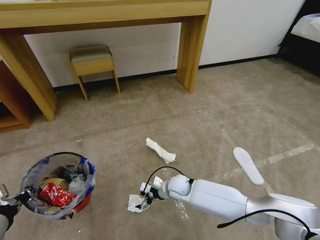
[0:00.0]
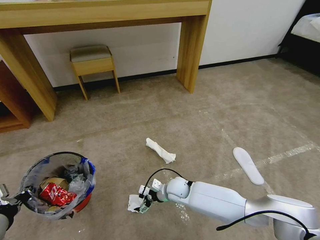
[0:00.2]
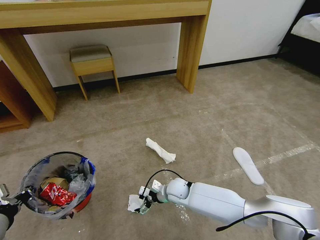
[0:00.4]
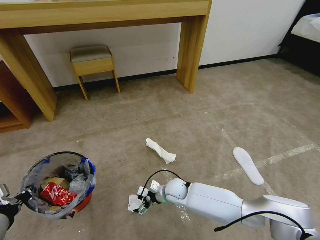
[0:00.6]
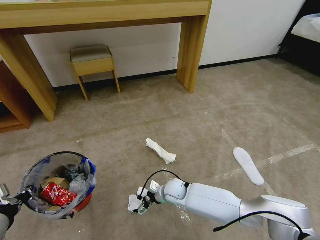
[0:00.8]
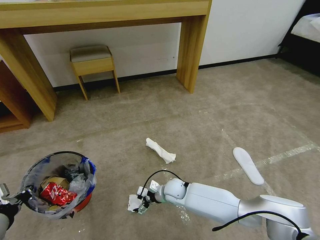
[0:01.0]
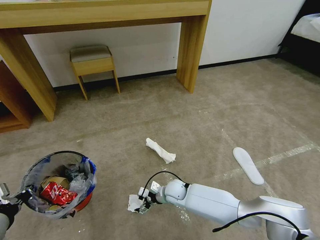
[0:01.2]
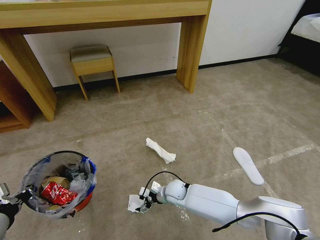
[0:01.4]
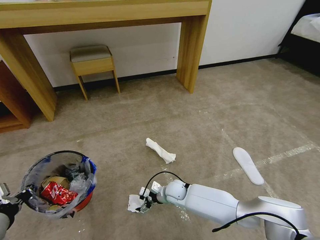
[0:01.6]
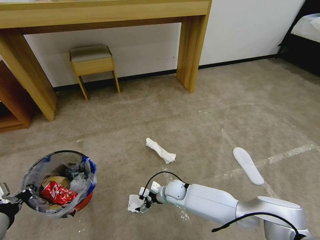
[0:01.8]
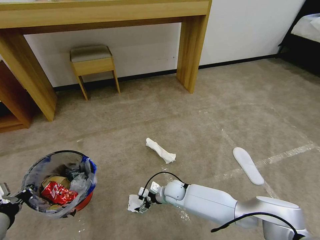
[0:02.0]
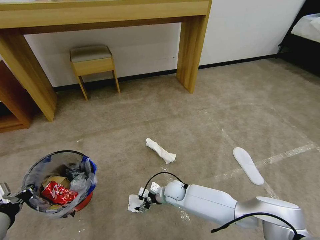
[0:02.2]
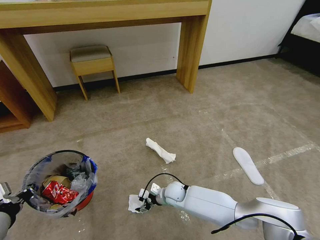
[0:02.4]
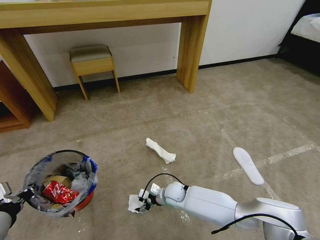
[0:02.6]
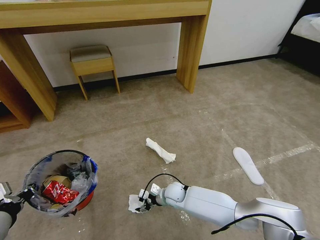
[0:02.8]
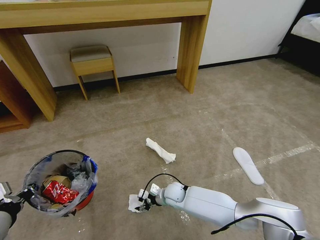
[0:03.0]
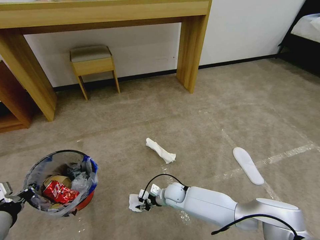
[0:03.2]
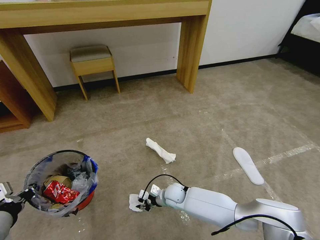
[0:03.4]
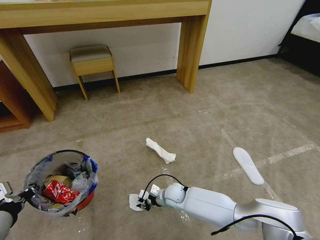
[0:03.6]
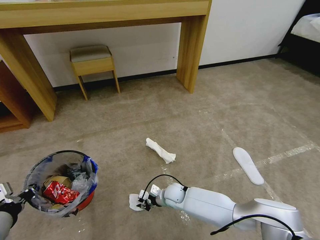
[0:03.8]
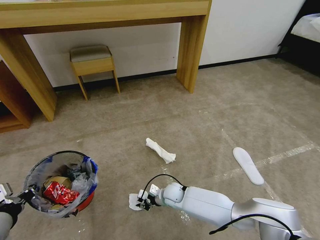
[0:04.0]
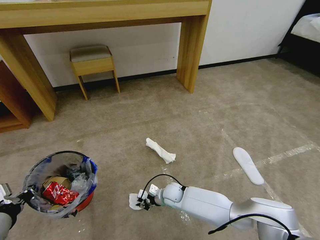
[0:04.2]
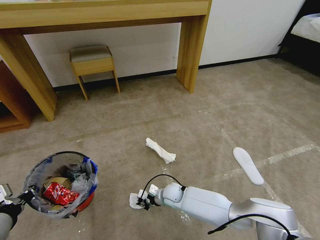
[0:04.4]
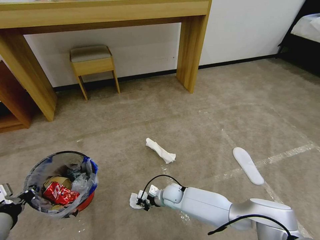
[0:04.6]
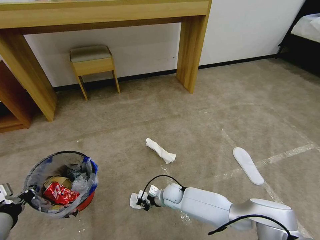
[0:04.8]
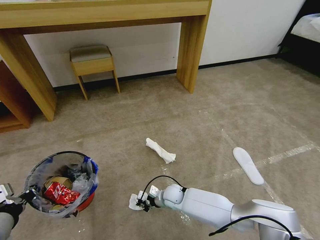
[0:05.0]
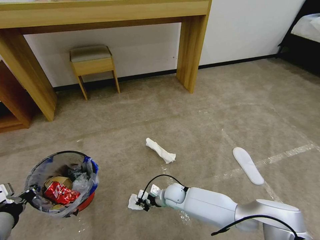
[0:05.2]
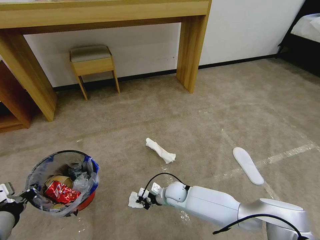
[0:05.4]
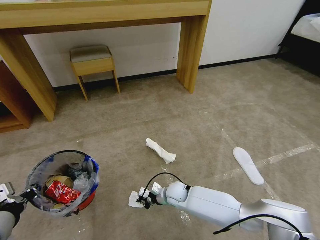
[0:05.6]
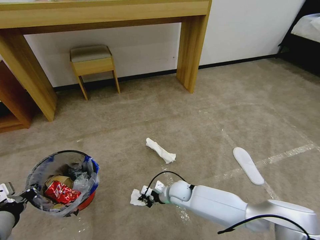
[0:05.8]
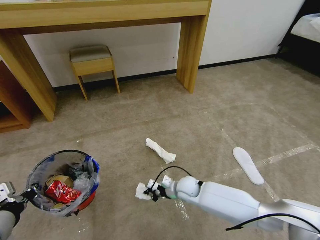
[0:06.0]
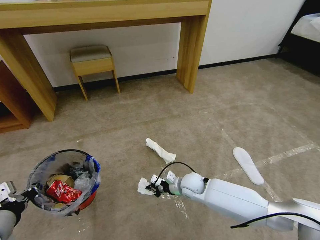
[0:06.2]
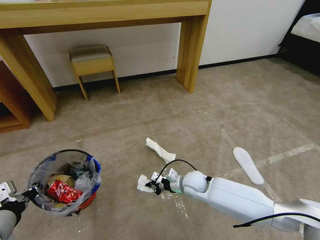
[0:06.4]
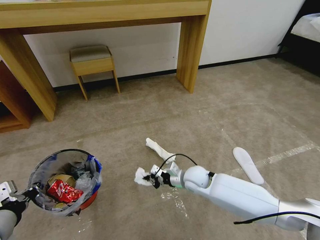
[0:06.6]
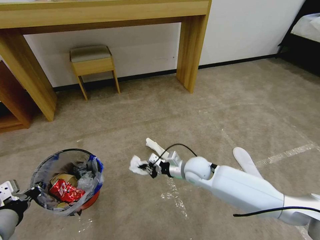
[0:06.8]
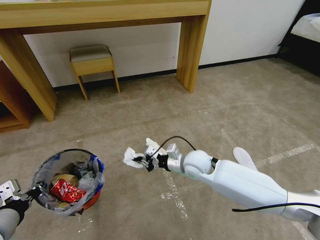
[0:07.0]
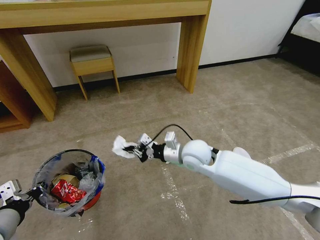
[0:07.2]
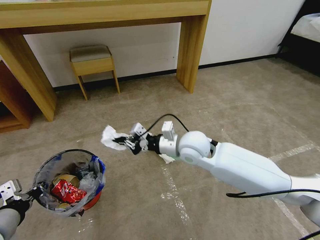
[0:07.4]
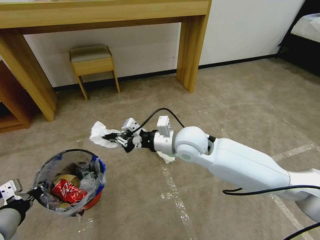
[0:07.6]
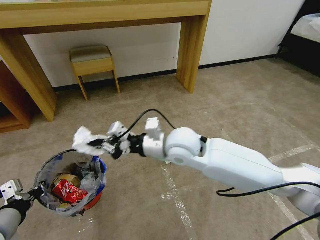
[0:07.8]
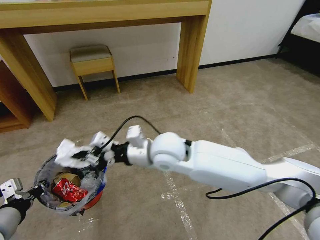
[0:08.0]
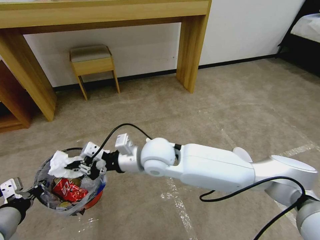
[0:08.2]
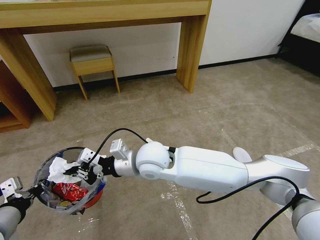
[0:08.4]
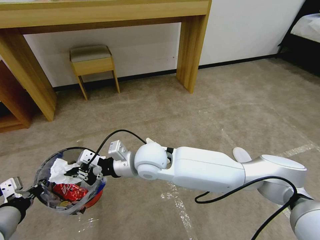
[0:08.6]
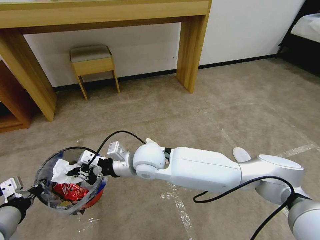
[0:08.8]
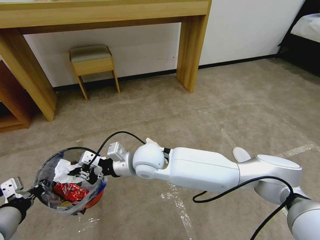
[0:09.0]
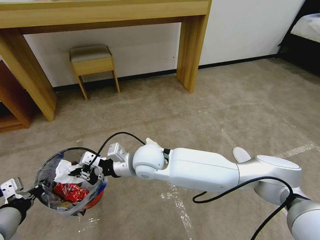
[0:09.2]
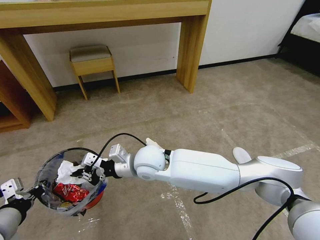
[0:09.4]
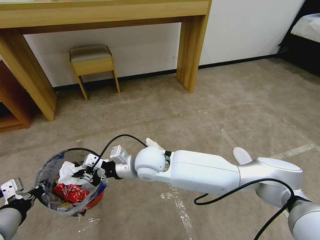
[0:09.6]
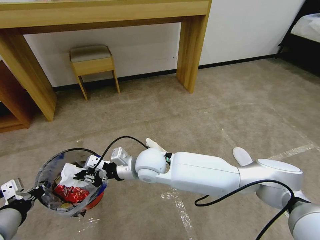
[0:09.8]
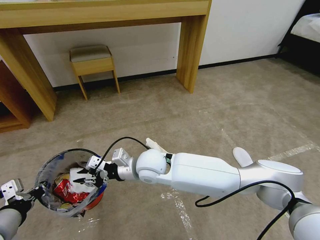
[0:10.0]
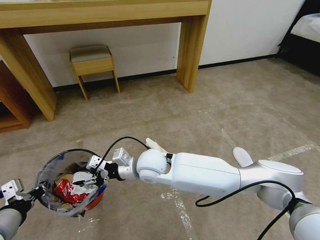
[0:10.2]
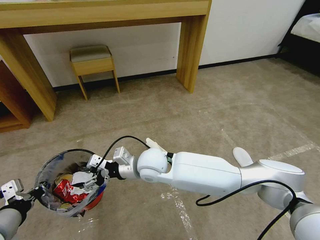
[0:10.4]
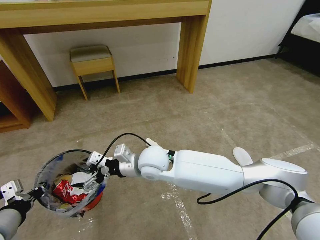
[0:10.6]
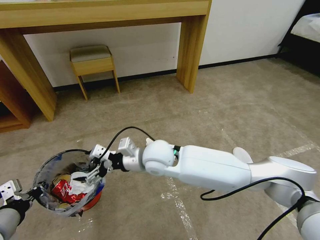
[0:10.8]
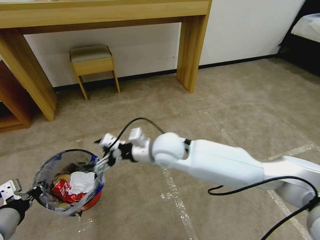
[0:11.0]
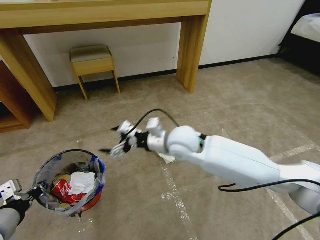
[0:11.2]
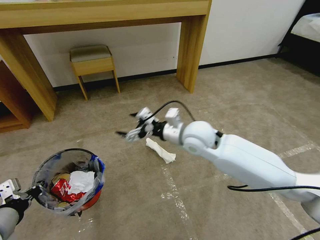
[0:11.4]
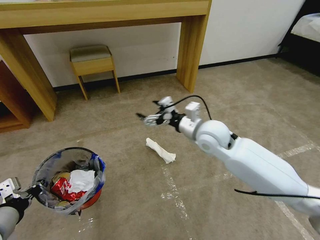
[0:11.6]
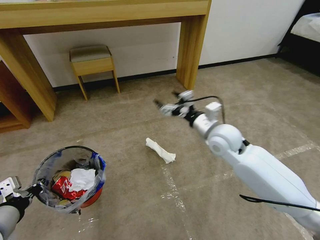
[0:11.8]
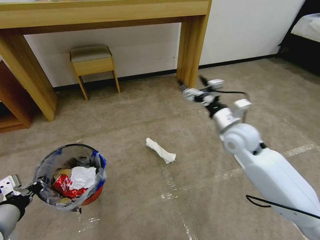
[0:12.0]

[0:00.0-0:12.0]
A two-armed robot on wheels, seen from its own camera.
Task of the whole recording: Pick up the trash bin and place the garbage on the floor into it.
0:00.0 to 0:01.6: The grippers move only a little.
0:01.6 to 0:03.0: Neither gripper changes place.
0:03.0 to 0:04.4: The right gripper closes up.
0:04.4 to 0:06.0: The right gripper is displaced upward and to the right by some 10 cm.
0:06.0 to 0:07.6: The right gripper goes some 30 cm upward.
0:07.6 to 0:09.0: The right gripper goes roughly 15 cm to the left and downward.
0:09.0 to 0:10.4: The right gripper opens up.
0:10.4 to 0:12.0: The right gripper is displaced to the right by approximately 25 cm.

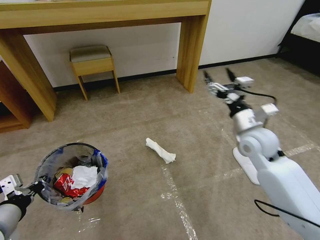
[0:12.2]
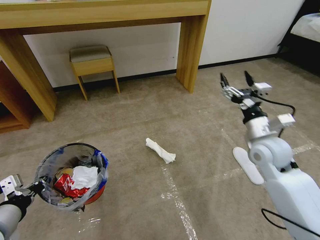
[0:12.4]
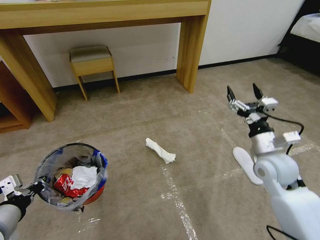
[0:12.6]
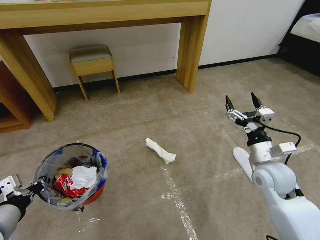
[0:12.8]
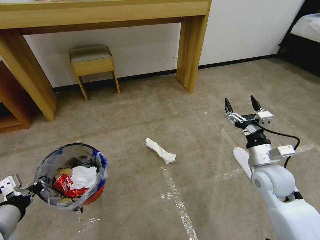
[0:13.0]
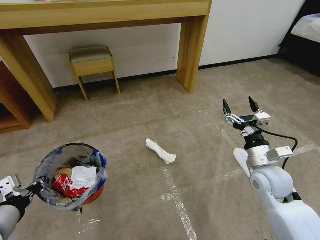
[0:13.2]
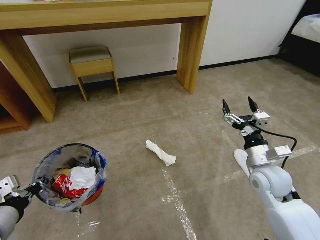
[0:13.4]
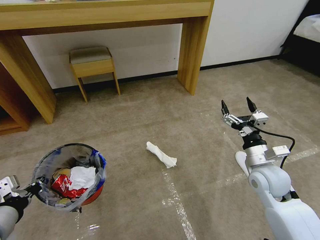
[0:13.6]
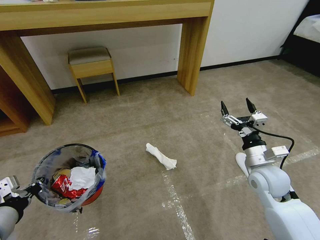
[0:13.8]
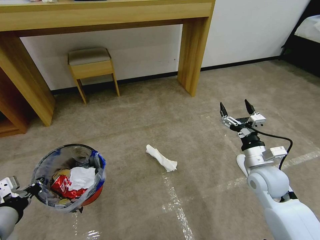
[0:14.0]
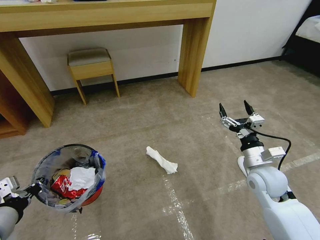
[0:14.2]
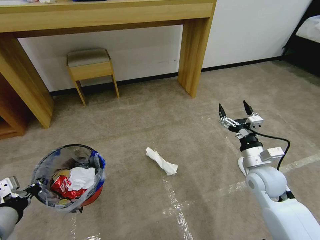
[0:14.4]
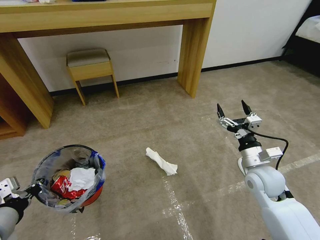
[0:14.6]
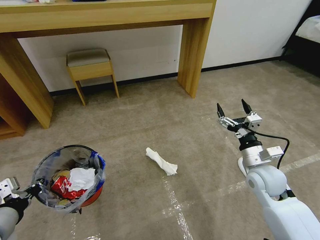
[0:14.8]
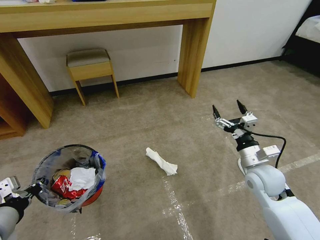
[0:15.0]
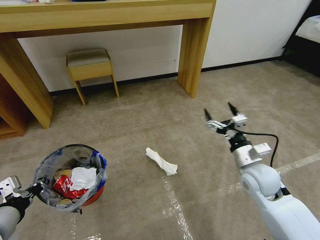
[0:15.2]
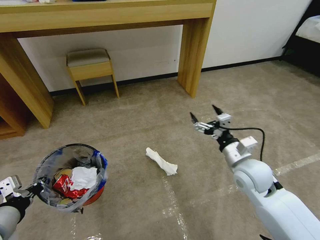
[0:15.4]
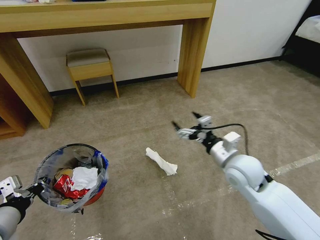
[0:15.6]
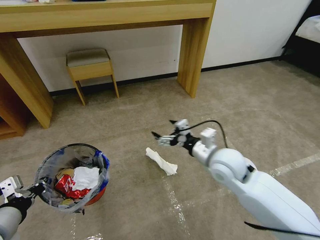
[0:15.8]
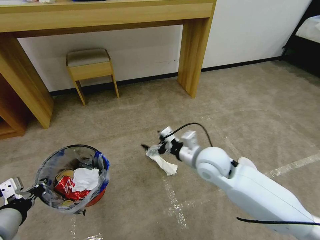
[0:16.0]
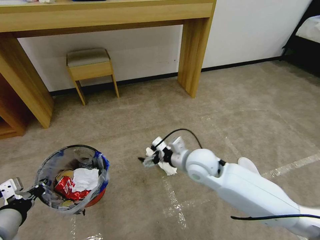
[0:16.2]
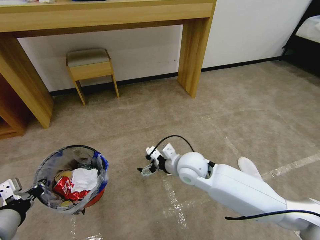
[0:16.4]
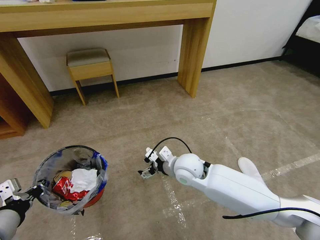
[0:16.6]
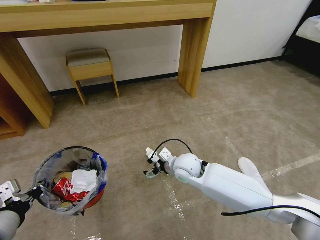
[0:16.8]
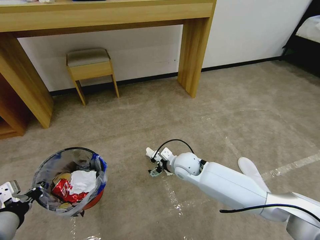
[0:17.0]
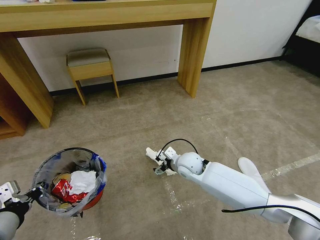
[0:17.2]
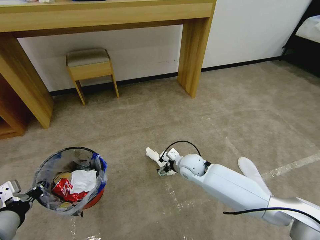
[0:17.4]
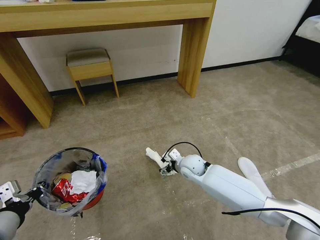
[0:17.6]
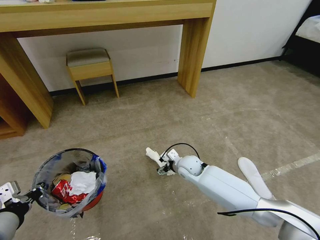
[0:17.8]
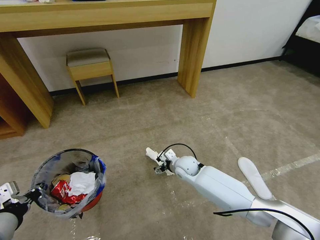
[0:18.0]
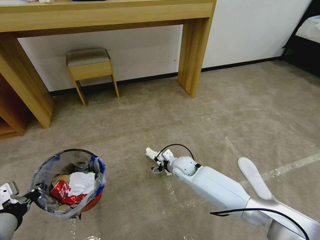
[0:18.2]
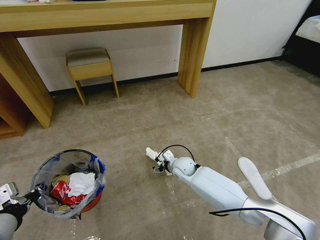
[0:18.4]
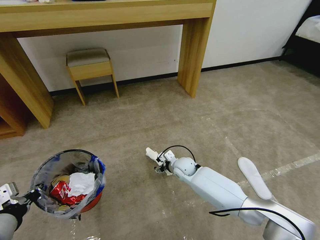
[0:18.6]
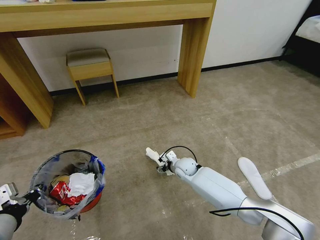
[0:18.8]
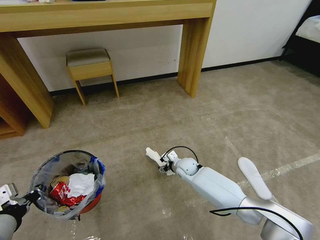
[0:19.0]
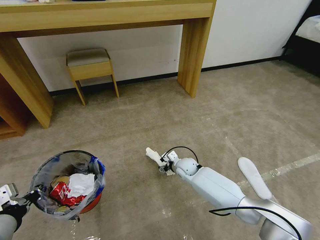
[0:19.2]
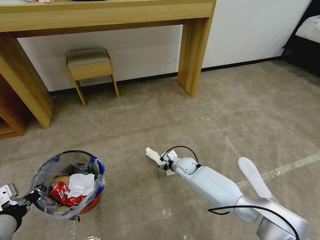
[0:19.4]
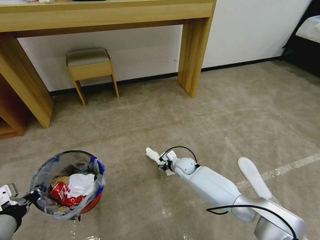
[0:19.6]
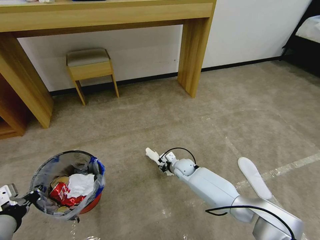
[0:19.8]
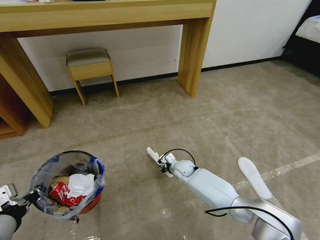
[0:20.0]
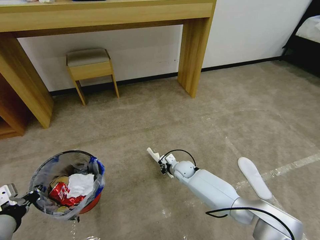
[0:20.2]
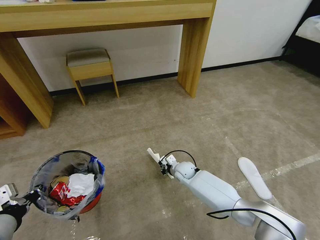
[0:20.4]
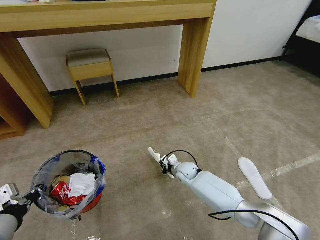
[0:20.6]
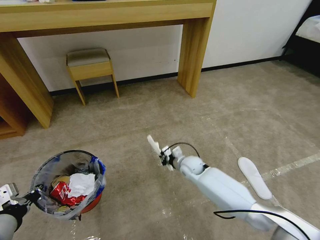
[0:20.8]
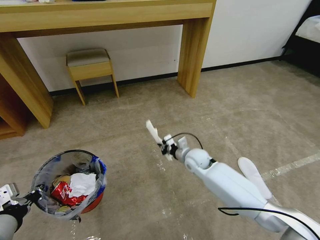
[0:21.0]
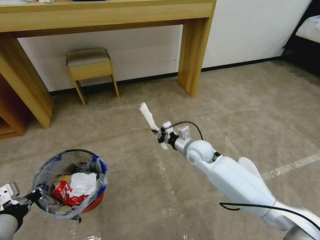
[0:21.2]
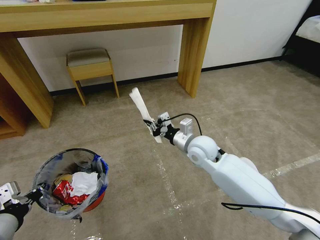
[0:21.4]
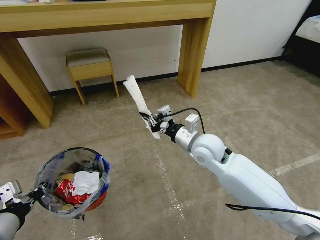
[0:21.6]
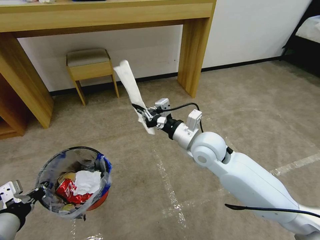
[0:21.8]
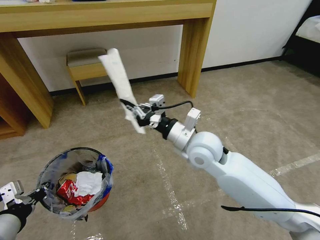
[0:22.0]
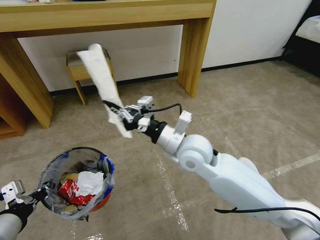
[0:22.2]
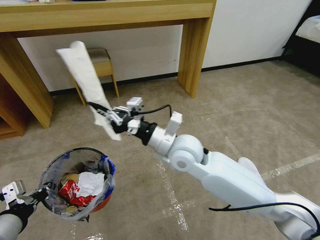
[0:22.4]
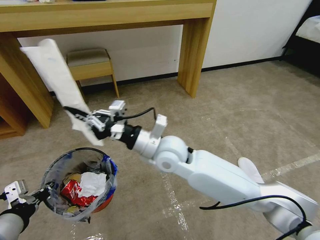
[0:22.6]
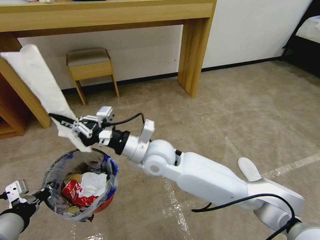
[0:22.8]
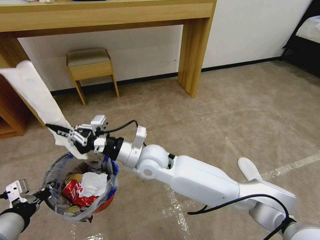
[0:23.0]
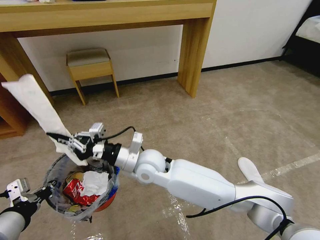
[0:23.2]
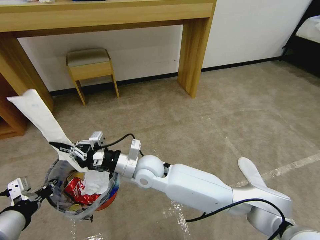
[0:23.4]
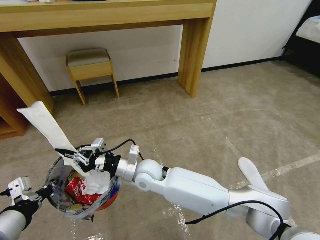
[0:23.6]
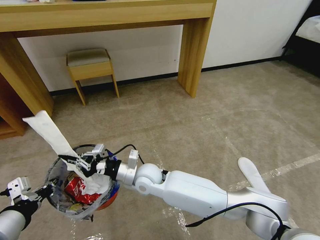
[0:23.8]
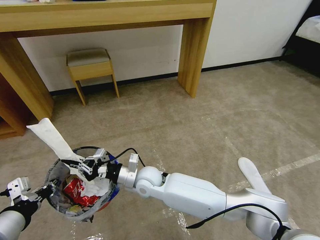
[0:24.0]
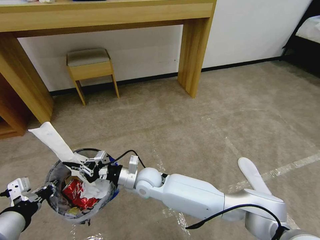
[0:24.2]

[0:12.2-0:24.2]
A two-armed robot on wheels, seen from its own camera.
Task of the whole recording: Pick up the trash bin and place the garbage on the floor into it.
0:12.2 to 0:13.8: The right gripper shifts about 10 cm backward and downward.
0:13.8 to 0:15.2: There are only small adjustments of the grippers.
0:15.2 to 0:16.6: The right gripper travels to the left by about 20 cm.
0:16.6 to 0:18.2: The right gripper is displaced downward and forward by roughly 15 cm.
0:18.2 to 0:19.8: The right gripper is displaced downward by approximately 5 cm, and closes up.
0:19.8 to 0:21.2: The right gripper travels upward by about 15 cm, and closes its fingers.
0:21.2 to 0:22.6: The right gripper goes approximately 20 cm to the left, upward and backward.
0:22.6 to 0:24.2: The right gripper moves downward, some 15 cm.
